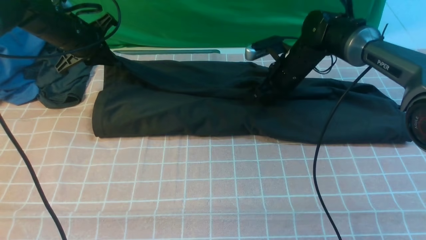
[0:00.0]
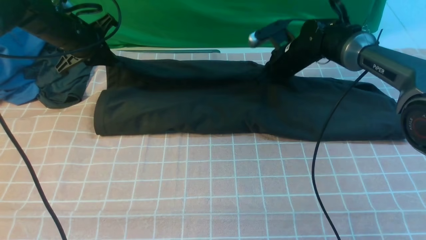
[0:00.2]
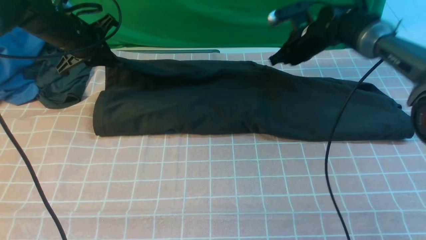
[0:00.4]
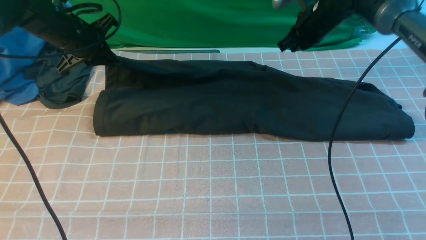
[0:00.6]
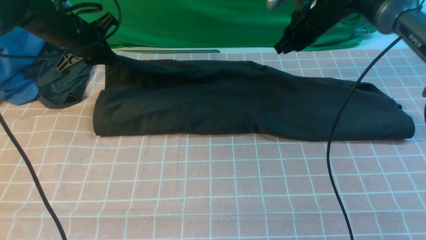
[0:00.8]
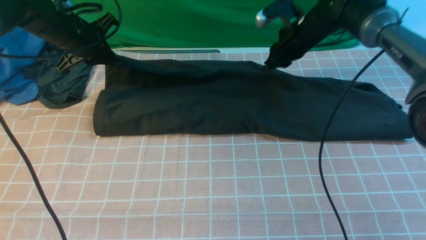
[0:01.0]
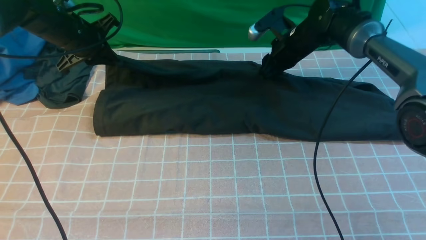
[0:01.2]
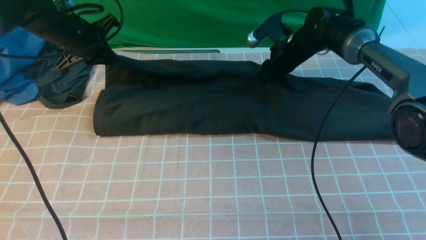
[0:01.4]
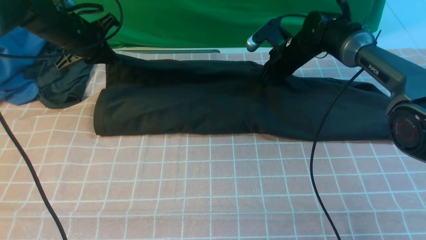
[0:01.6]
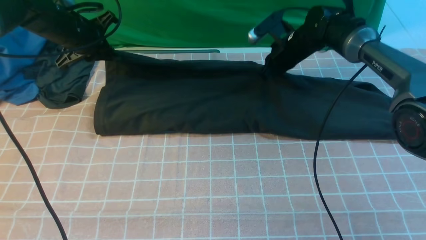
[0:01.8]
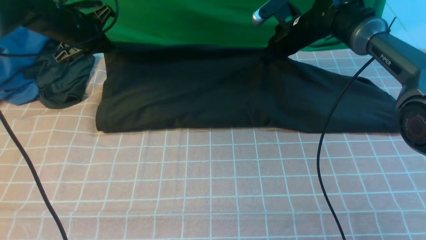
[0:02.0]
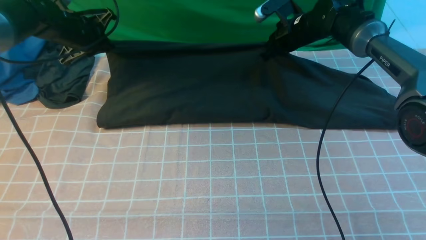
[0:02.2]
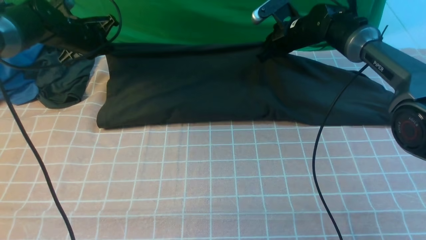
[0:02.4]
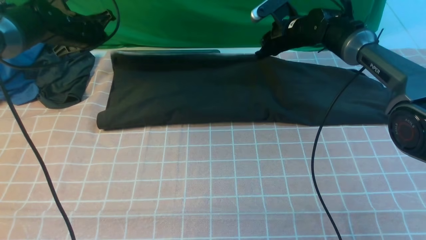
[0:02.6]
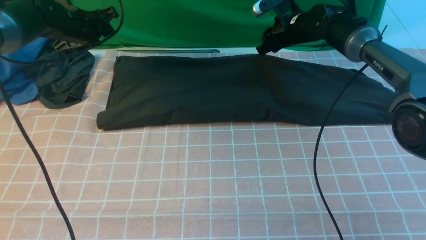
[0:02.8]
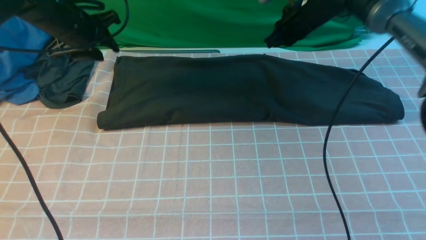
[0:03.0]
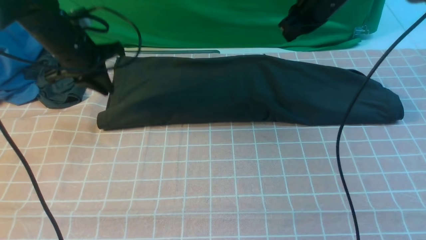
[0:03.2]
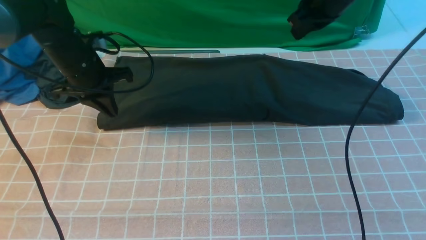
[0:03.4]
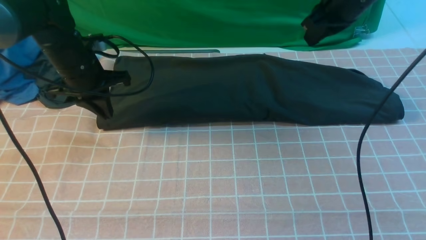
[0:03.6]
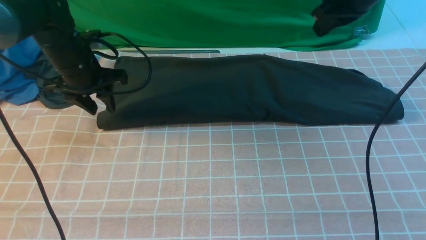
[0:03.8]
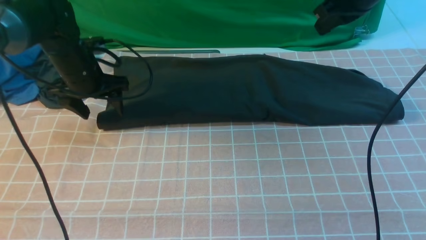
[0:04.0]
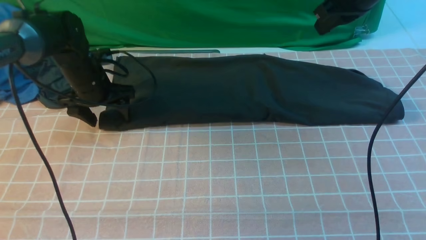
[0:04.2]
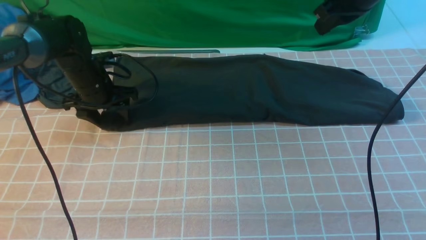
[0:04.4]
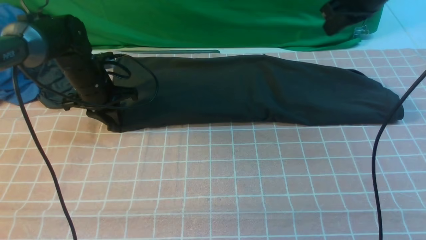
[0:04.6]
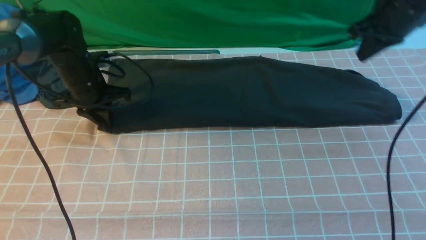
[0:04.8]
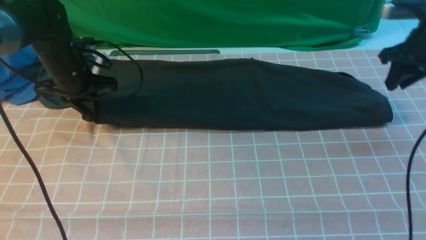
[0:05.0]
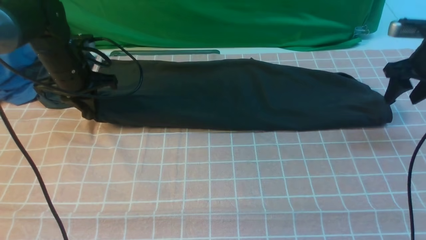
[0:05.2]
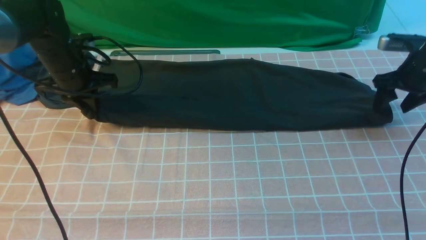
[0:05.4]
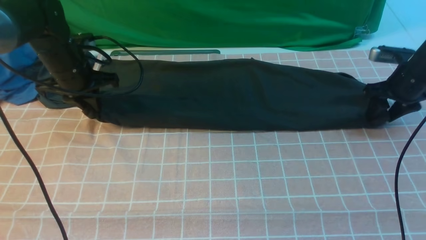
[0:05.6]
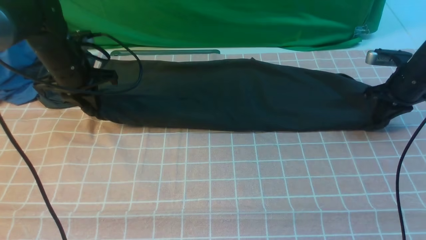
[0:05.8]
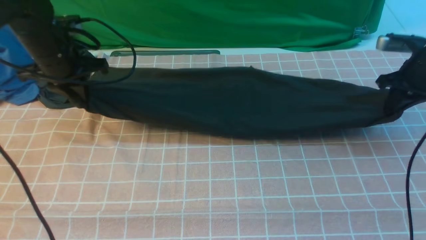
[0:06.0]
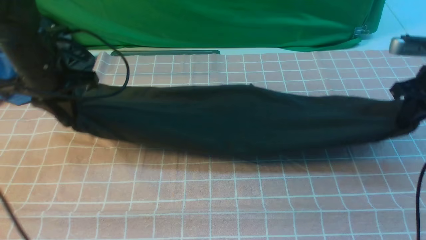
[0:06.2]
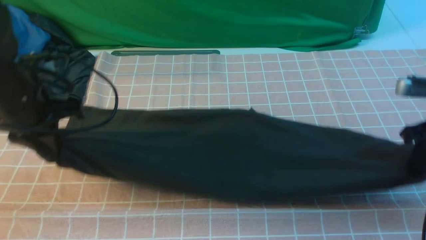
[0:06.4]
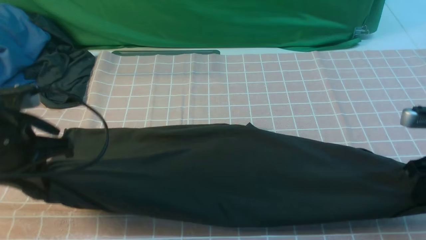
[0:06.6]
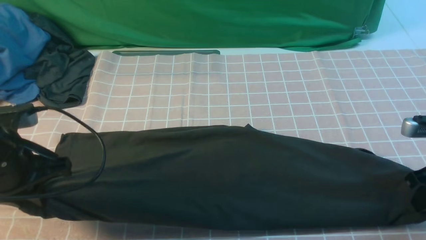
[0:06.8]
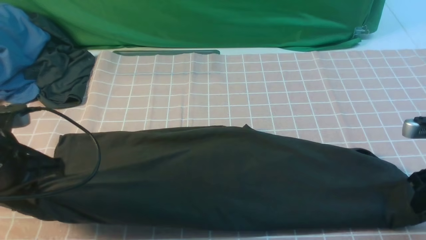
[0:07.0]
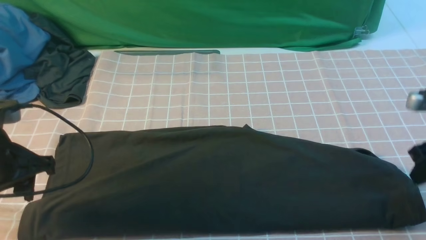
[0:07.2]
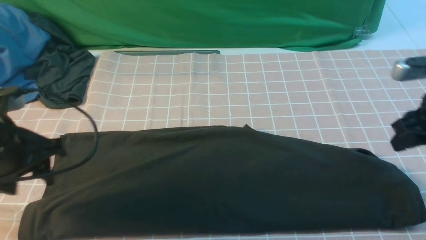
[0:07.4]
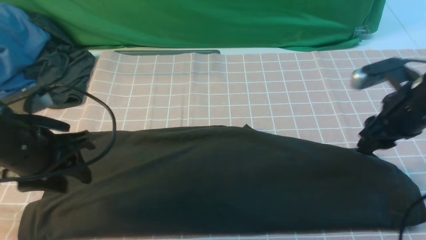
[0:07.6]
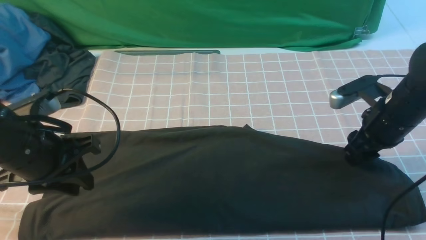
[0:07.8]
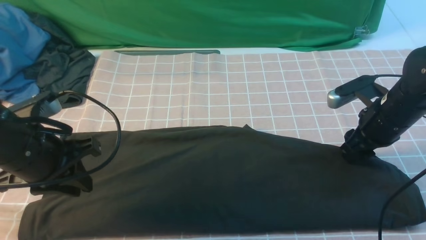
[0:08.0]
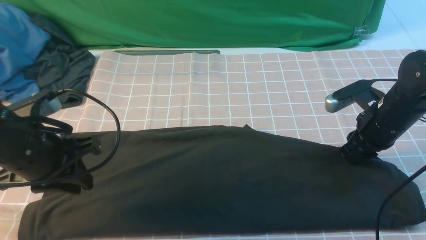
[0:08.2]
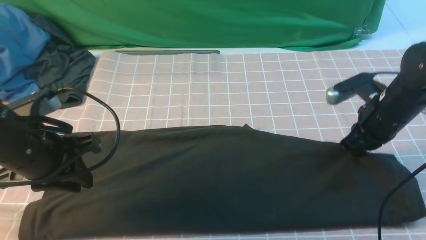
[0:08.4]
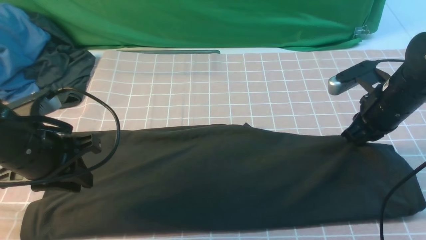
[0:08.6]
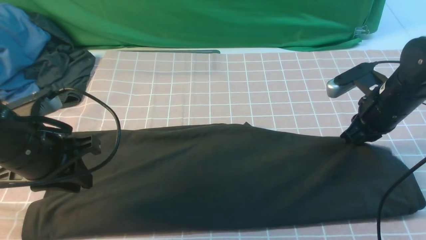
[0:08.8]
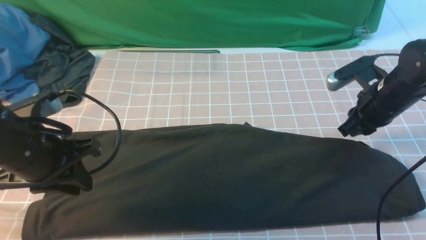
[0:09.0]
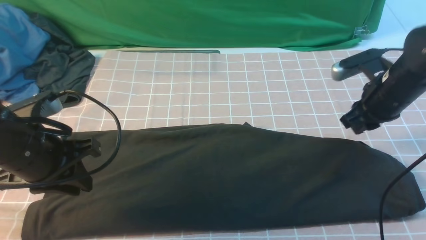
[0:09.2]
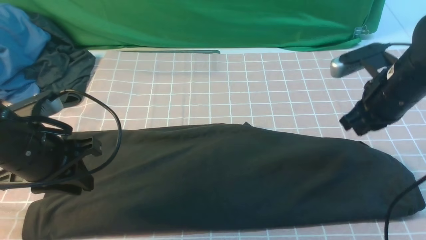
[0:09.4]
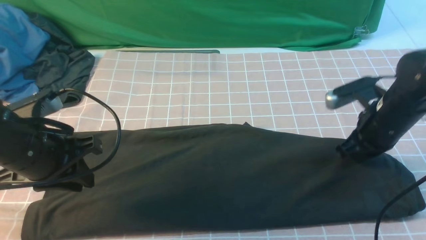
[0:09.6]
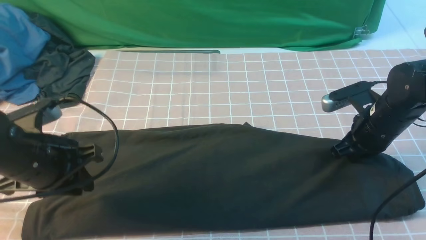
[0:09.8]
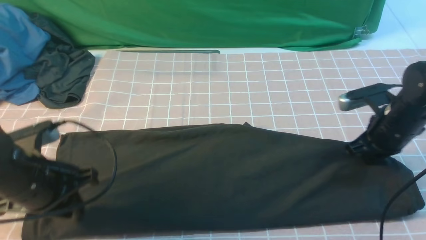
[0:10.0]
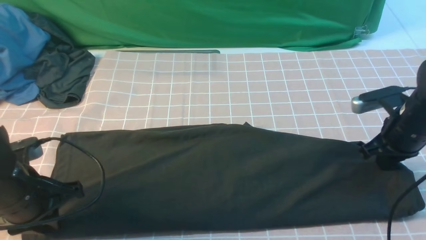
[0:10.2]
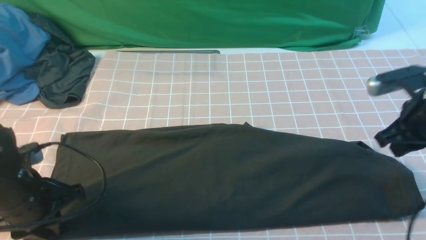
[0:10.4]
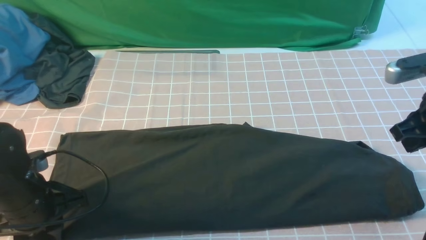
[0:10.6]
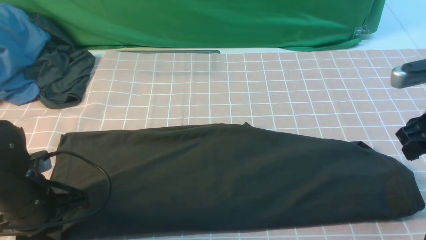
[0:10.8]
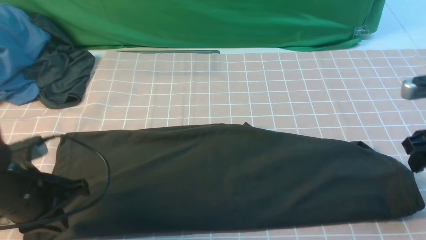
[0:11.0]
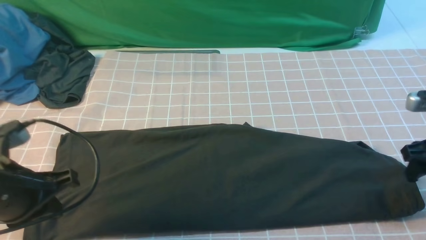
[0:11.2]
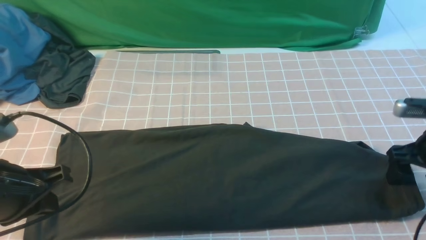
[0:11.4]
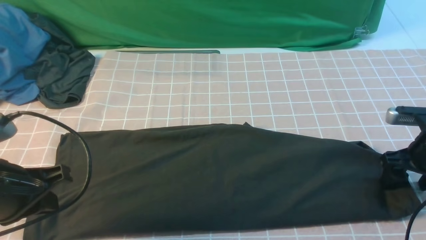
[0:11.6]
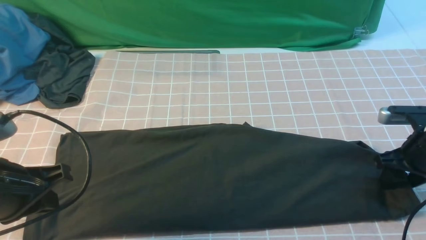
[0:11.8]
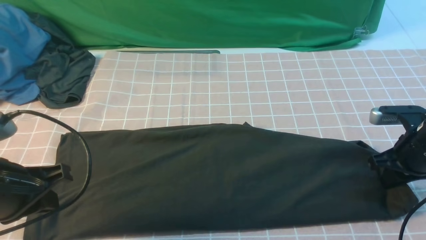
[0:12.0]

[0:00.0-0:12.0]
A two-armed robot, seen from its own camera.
Step, 0:00.0 to 0:03.0: use both arms to drag the lower edge of the fabric forward and fold it over the upper edge.
0:01.6 to 0:03.0: The right gripper shifts about 10 cm upward. Meanwhile the left gripper opens its fingers.
0:03.0 to 0:04.4: The left gripper travels downward by about 10 cm, and closes and opens again, while the right gripper travels upward and backward by approximately 15 cm.
0:04.4 to 0:06.0: The right gripper heads downward and to the right, covering some 20 cm, and opens, then closes again; the left gripper travels upward by about 10 cm, and closes its fingers.
0:06.0 to 0:07.6: The left gripper travels backward by approximately 15 cm, and opens. The right gripper shifts roughly 10 cm backward and to the left, and opens its fingers.
0:07.6 to 0:09.0: The right gripper closes up.
0:09.0 to 0:10.4: The left gripper shifts some 10 cm downward, while the right gripper goes about 5 cm backward.
0:10.4 to 0:12.0: The right gripper is displaced downward by about 5 cm, and opens, then closes again. The left gripper travels upward by some 10 cm, and closes up.

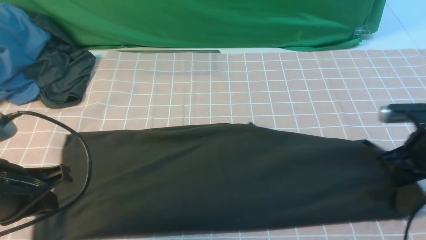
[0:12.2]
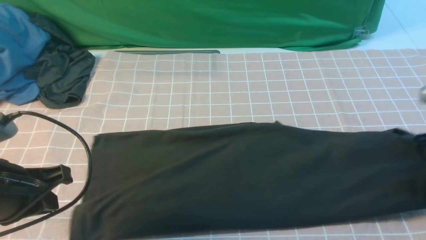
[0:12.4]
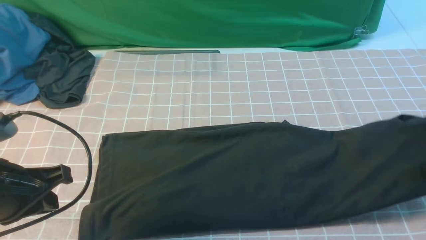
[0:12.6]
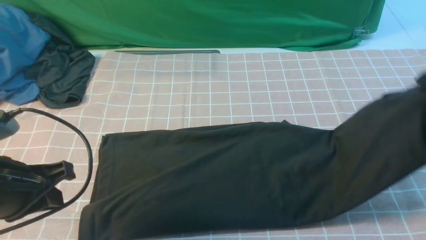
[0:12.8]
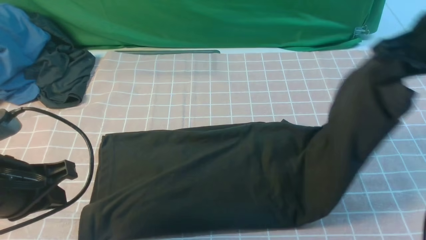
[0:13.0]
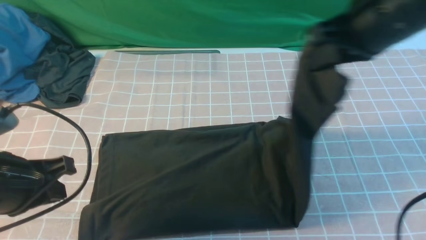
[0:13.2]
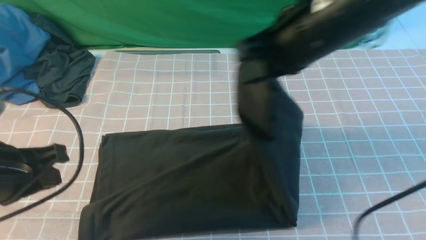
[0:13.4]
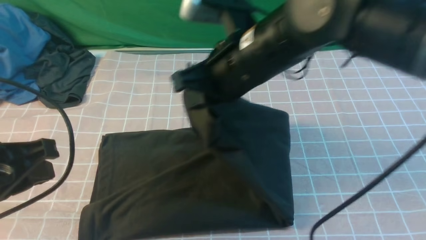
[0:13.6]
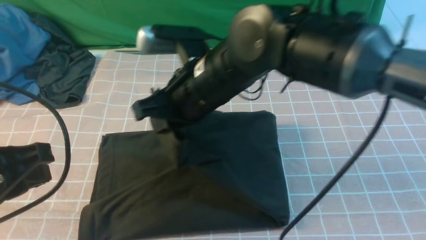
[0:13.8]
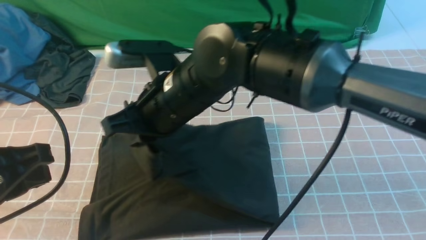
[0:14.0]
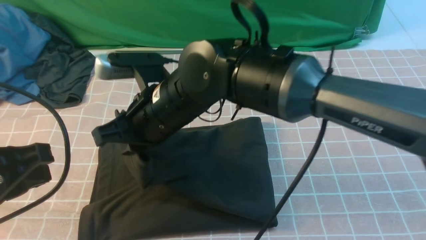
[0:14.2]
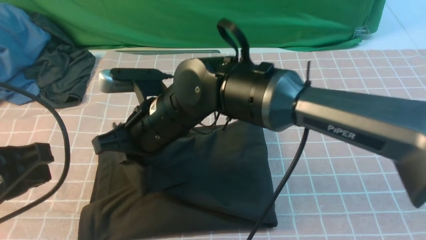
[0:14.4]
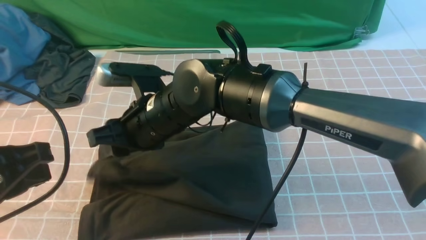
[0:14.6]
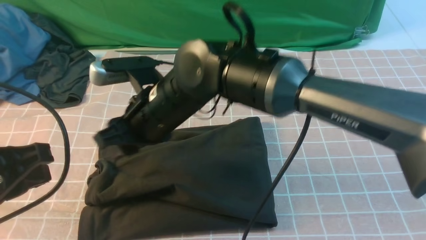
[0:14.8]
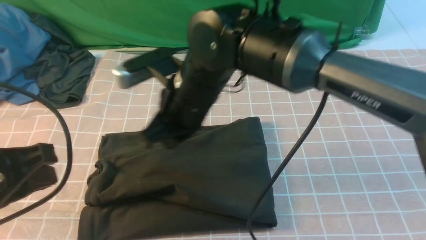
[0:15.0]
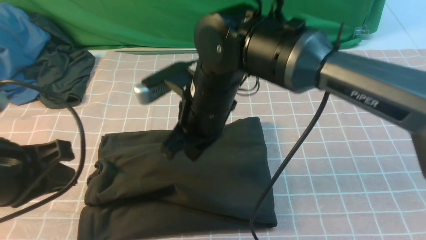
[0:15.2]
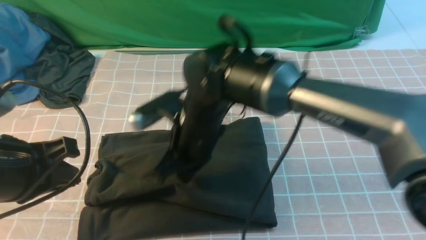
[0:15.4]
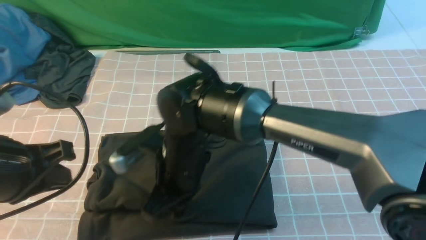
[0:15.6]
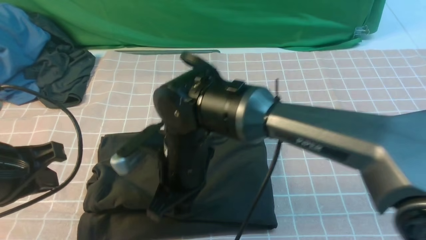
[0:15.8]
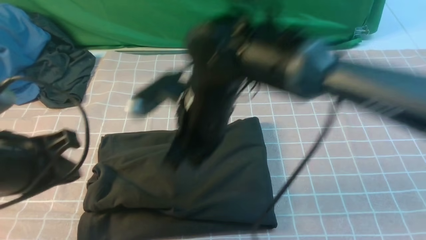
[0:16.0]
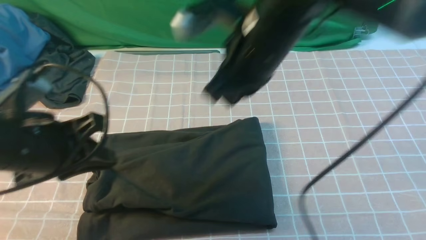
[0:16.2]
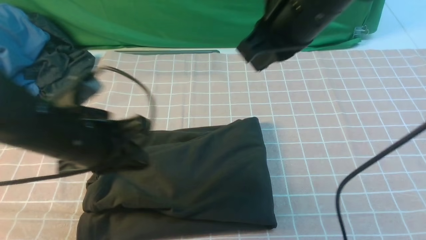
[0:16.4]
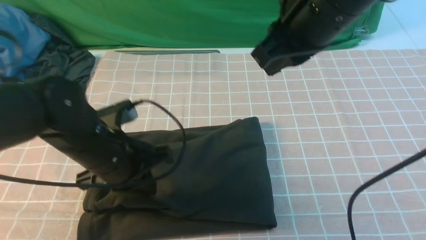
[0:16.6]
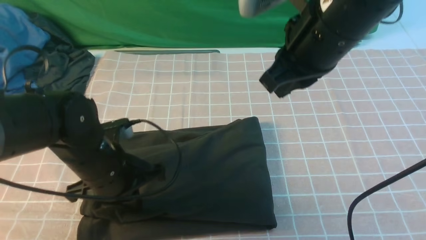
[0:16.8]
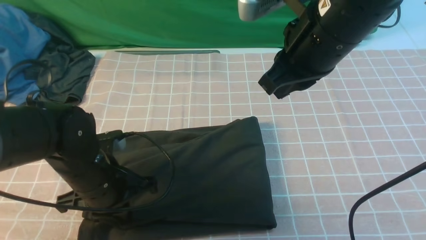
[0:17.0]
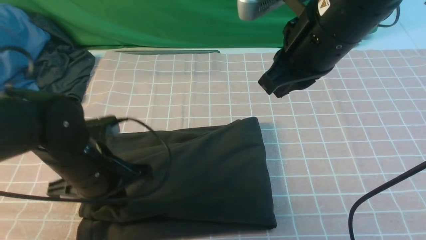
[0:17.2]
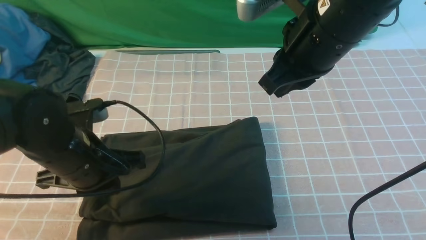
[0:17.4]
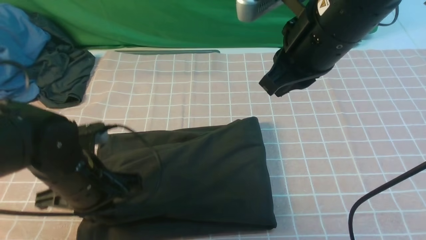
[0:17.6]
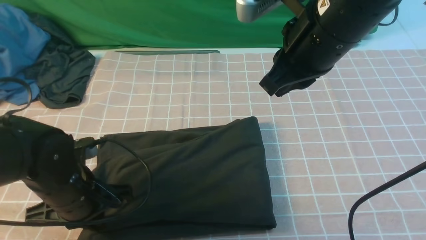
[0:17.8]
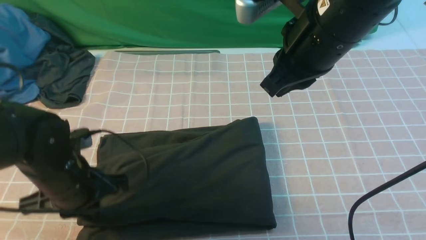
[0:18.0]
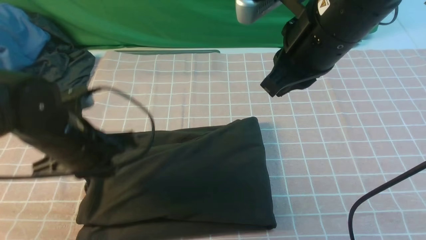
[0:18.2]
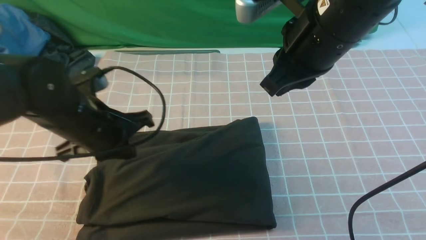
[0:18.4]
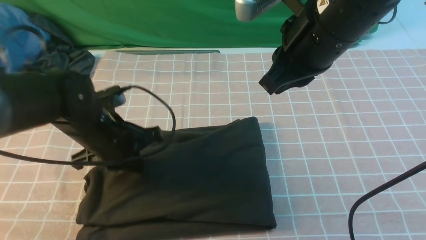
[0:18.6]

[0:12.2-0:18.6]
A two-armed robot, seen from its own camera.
Step, 0:12.4 to 0:14.8: use the right arm to drag the right edge of the fabric to the left and folds it over the left edge.
0:12.2 to 0:13.8: The right gripper is displaced to the left by about 35 cm; the left gripper ends up some 5 cm from where it was.
0:13.8 to 0:15.4: The right gripper is displaced downward by roughly 10 cm, and opens, then closes once more.
0:15.4 to 0:17.0: The left gripper shifts roughly 15 cm downward, forward and to the right, while the right gripper shifts about 20 cm upward and to the right.
0:17.0 to 0:18.6: The left gripper travels forward by roughly 5 cm.
